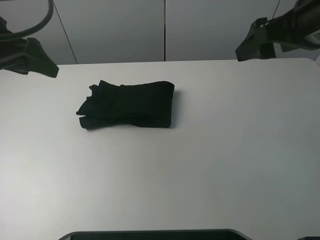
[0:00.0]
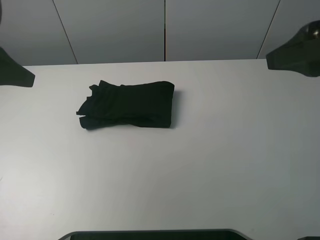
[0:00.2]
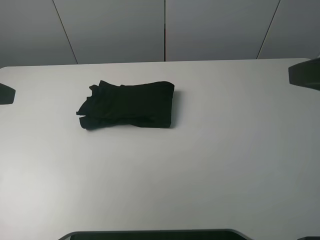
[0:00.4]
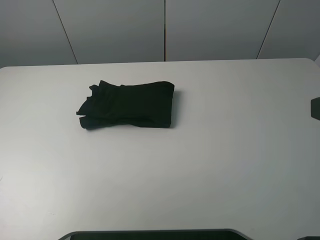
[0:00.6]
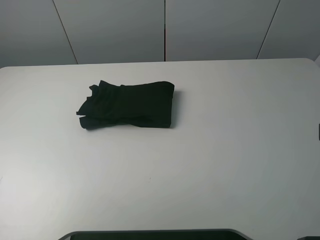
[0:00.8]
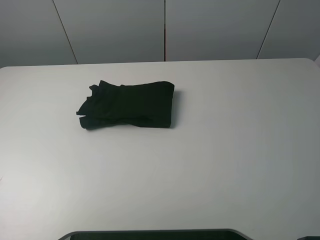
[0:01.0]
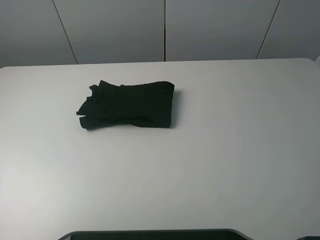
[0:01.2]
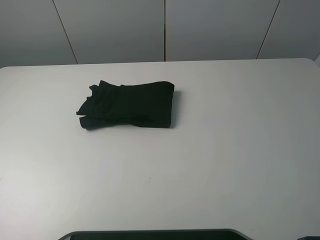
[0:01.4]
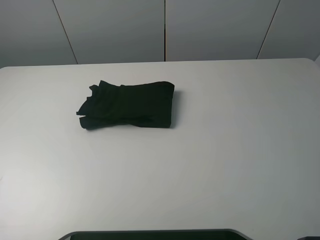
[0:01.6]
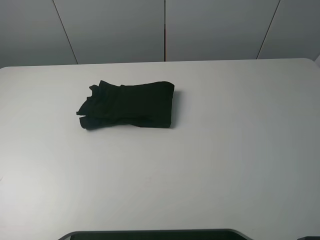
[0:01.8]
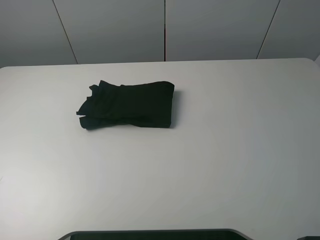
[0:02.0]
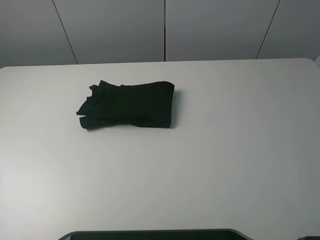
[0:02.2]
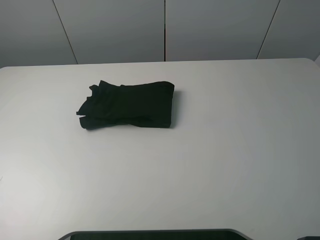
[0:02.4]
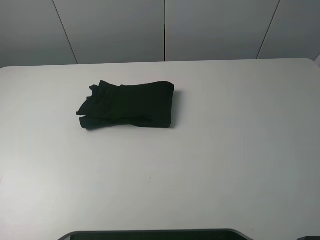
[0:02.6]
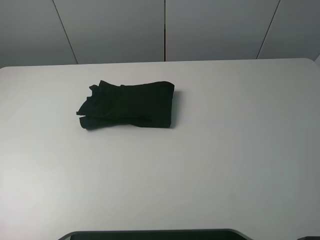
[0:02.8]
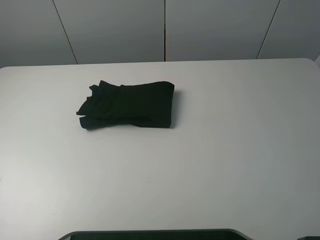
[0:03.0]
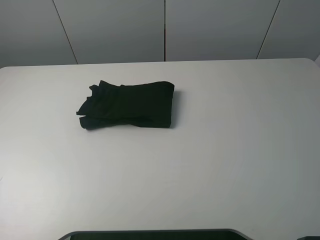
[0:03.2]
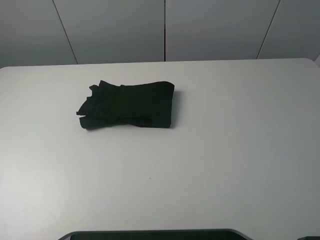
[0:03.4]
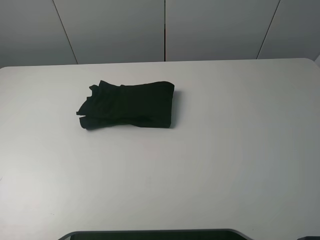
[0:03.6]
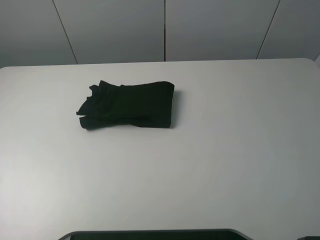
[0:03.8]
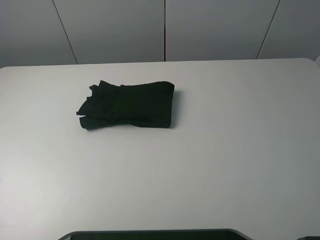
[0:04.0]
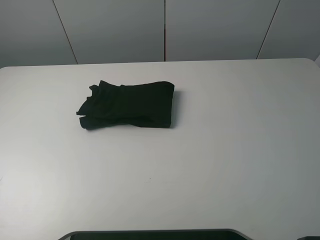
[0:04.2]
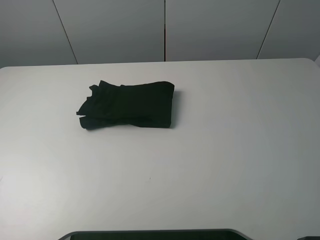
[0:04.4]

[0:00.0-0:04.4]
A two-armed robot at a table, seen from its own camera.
Task of the whole recording: fold the clothes on the table.
0:00.0 to 0:01.4: Both grippers travel together backward, some 20 cm.
0:03.0 to 0:04.4: Both grippers stay put.
